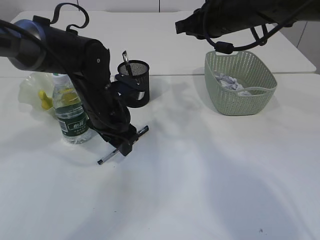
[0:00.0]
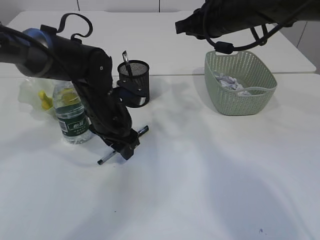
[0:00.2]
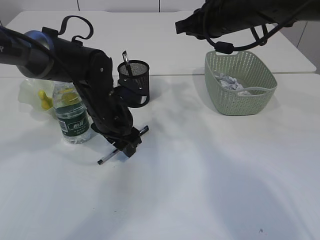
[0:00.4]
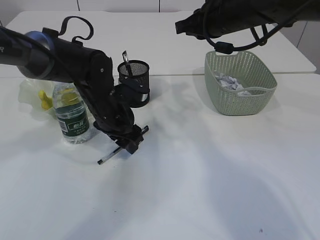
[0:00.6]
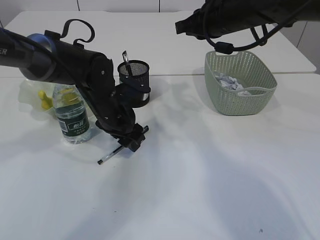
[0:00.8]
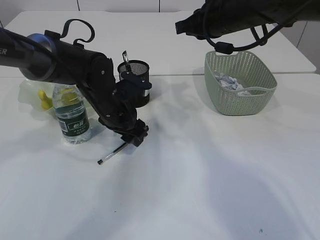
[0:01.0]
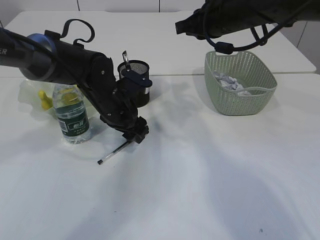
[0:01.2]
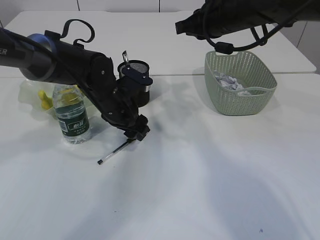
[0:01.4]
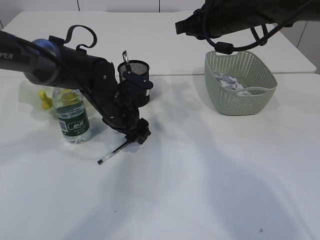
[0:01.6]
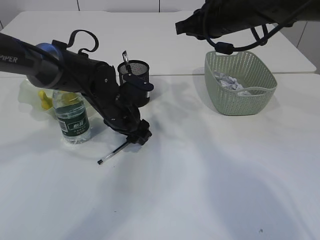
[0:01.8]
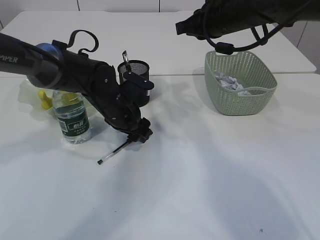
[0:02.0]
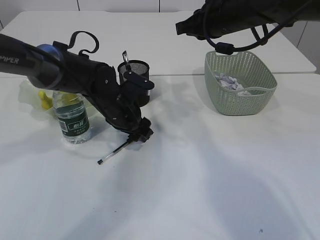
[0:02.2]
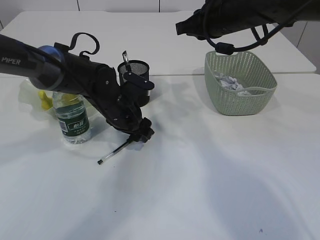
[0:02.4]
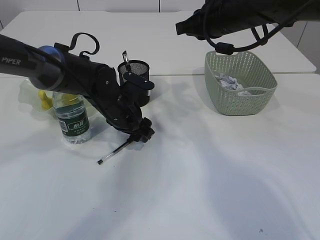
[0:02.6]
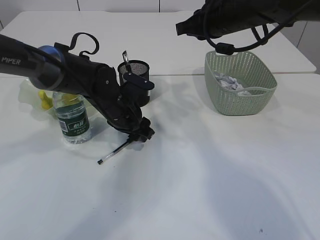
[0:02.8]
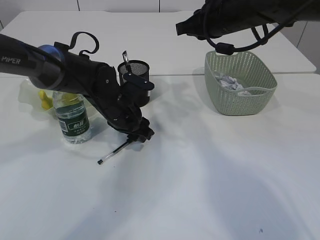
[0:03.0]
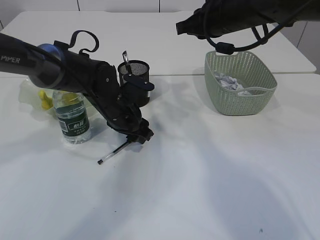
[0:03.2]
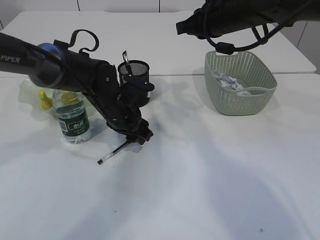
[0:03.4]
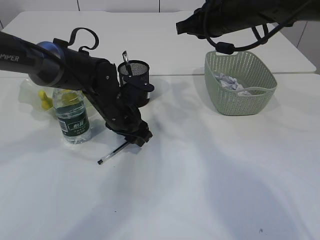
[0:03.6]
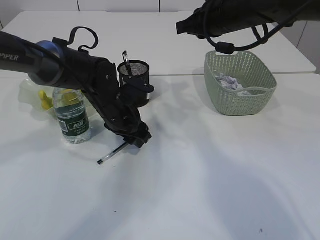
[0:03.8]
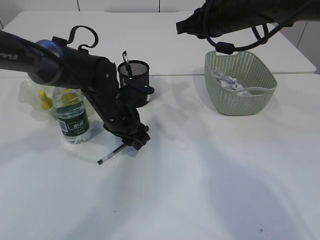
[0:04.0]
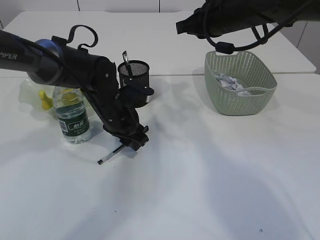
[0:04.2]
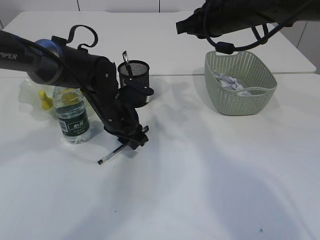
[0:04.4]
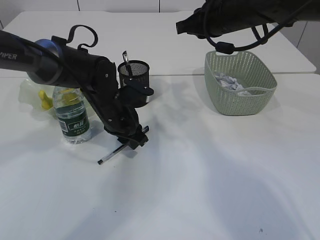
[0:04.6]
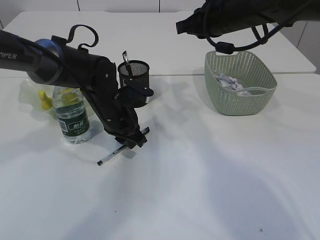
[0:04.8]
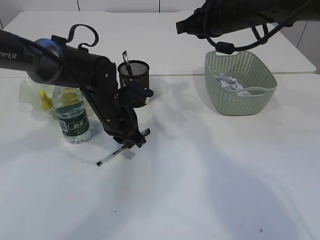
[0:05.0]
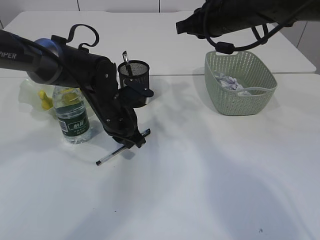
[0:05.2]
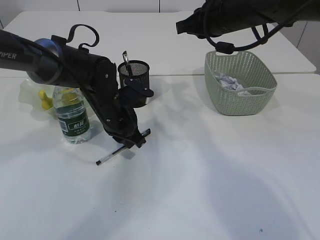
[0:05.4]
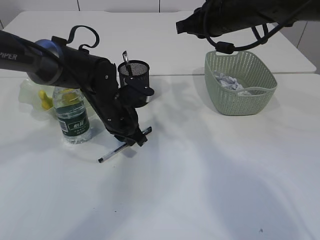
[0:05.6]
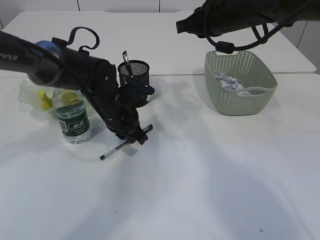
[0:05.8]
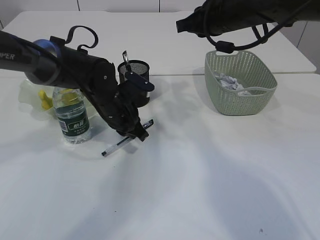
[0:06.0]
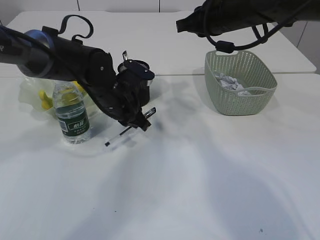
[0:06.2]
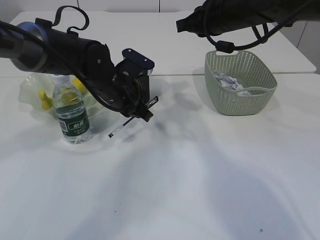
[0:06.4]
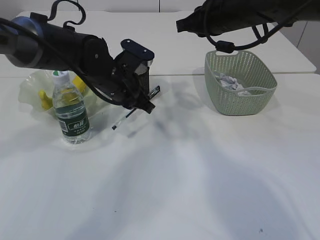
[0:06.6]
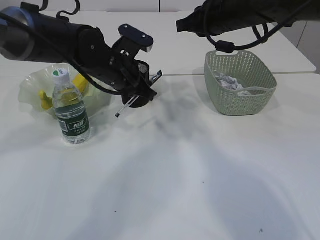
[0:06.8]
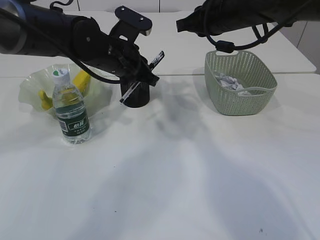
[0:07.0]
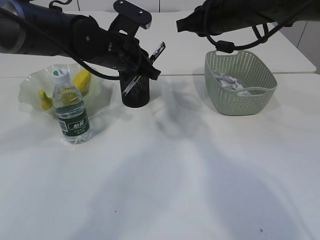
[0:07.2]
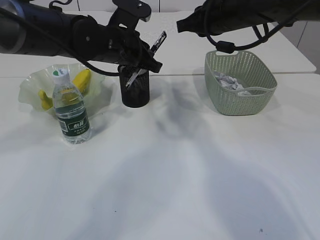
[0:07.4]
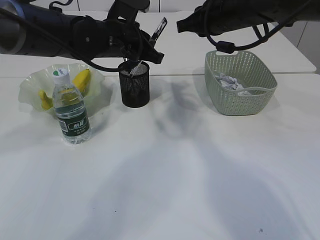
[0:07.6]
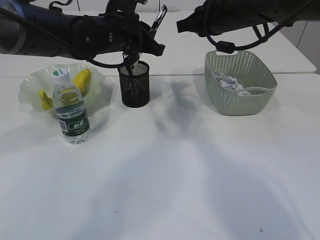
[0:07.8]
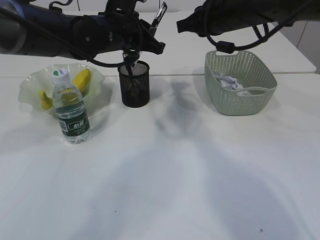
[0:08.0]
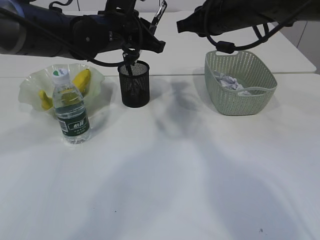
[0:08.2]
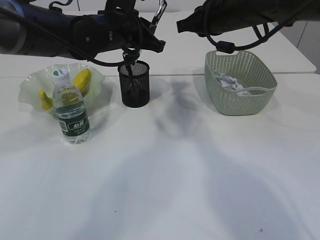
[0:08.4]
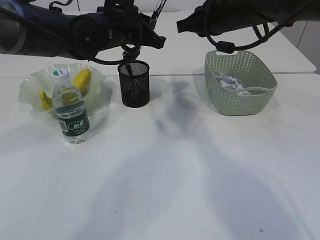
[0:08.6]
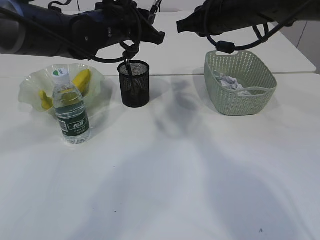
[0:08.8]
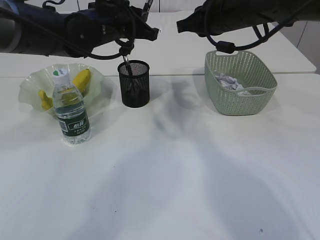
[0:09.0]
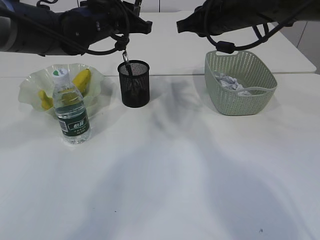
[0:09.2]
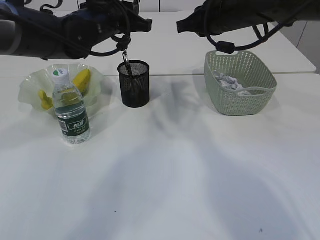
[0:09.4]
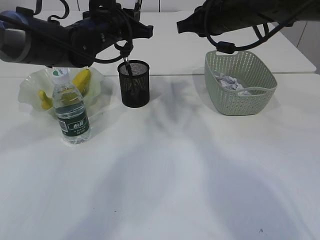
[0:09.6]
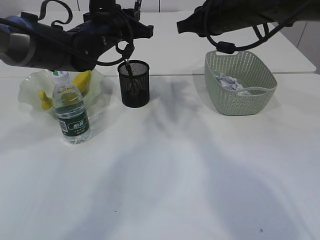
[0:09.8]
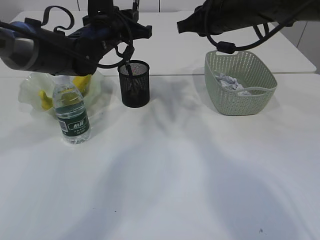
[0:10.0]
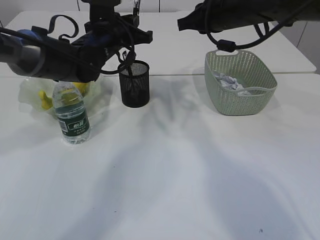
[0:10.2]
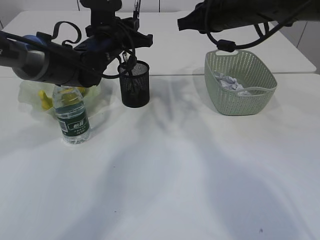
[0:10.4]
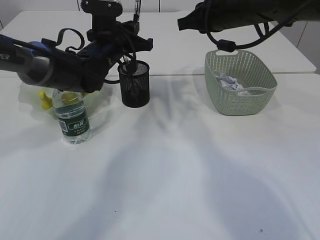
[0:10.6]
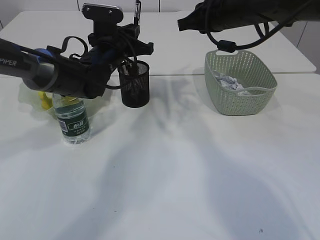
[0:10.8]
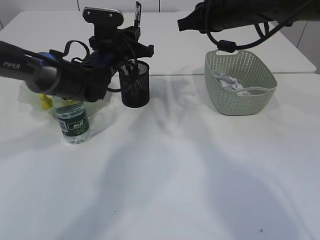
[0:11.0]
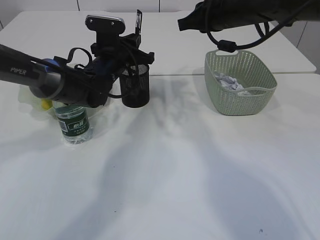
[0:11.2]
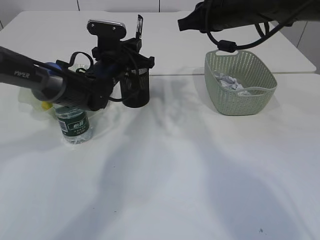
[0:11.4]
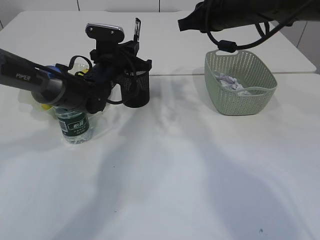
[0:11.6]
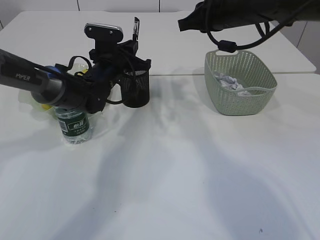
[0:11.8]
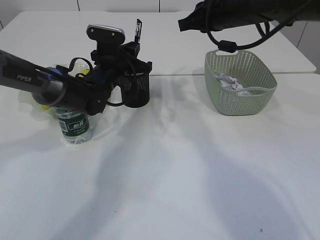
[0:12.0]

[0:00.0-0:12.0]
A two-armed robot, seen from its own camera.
Step, 0:00.0 to 0:06.0: Pick up the pen with left arm.
0:00.0 to 0:01.6: There are only small adjustments of the grippers.
0:01.6 to 0:03.0: Neither gripper changes place.
0:03.0 to 0:04.4: There are only small adjustments of the grippers.
0:04.4 to 0:06.0: The left gripper closes.
0:06.0 to 0:07.6: The left gripper shifts roughly 10 cm upward.
0:07.6 to 0:09.0: The grippers stay close to where they were, moving slightly.
0:09.0 to 0:10.4: The left gripper changes place by roughly 5 cm.
0:10.4 to 0:12.0: The left gripper moves downward, approximately 5 cm.

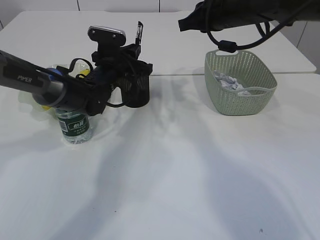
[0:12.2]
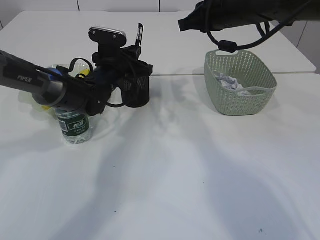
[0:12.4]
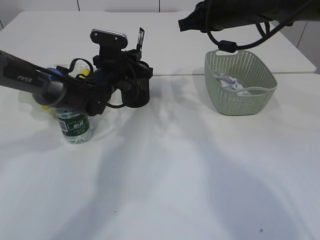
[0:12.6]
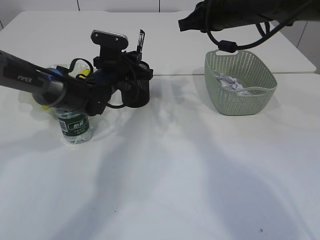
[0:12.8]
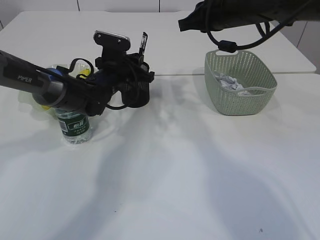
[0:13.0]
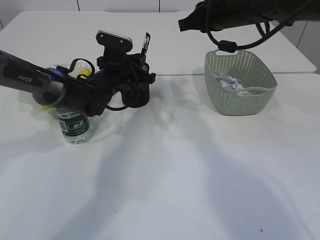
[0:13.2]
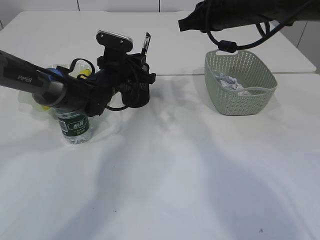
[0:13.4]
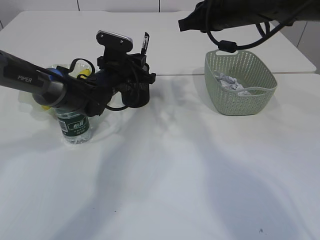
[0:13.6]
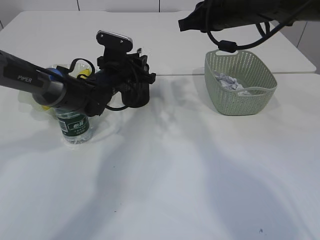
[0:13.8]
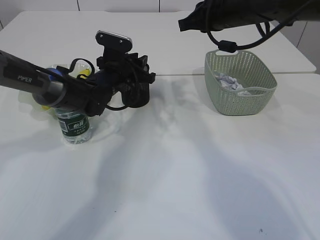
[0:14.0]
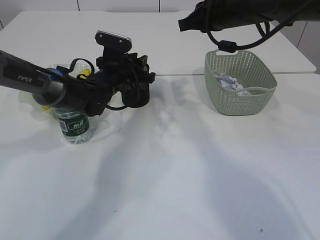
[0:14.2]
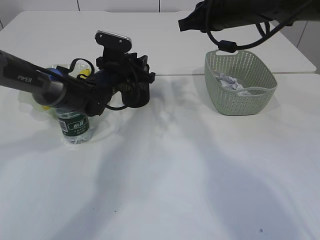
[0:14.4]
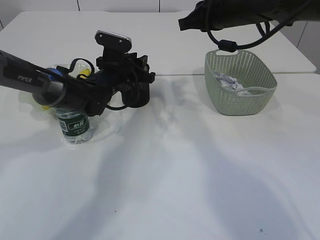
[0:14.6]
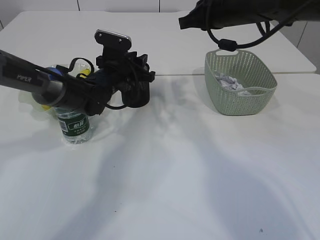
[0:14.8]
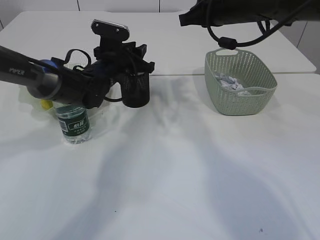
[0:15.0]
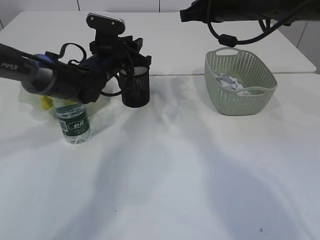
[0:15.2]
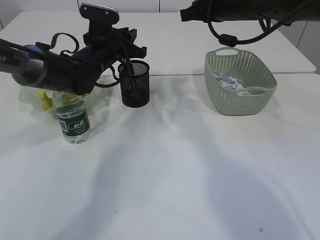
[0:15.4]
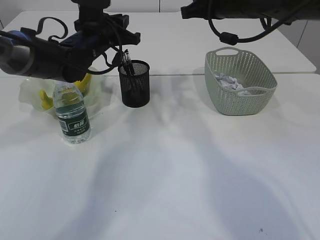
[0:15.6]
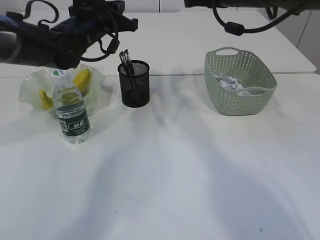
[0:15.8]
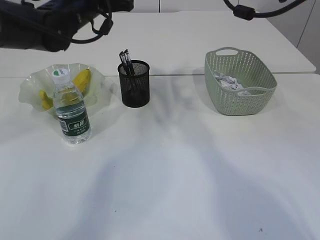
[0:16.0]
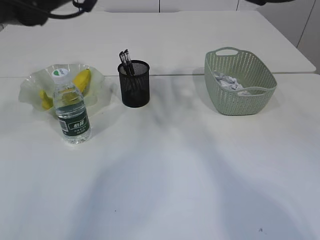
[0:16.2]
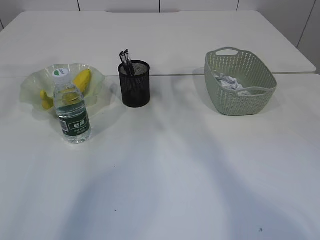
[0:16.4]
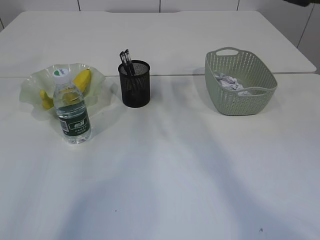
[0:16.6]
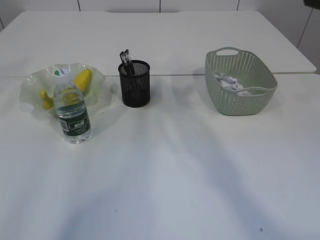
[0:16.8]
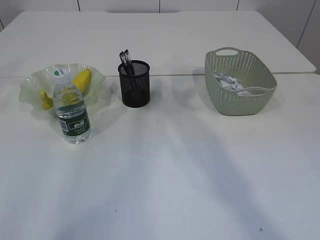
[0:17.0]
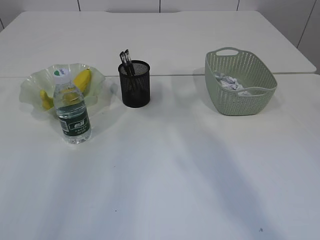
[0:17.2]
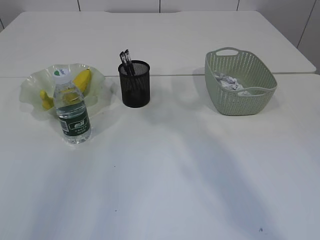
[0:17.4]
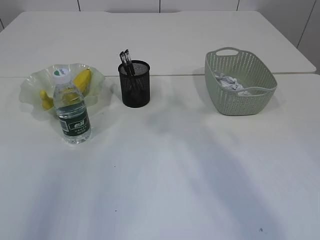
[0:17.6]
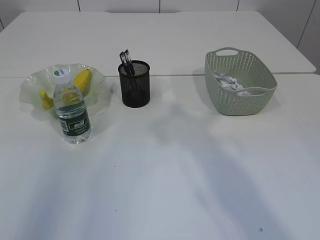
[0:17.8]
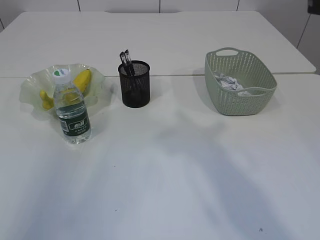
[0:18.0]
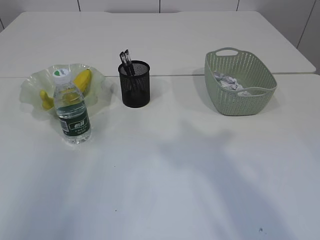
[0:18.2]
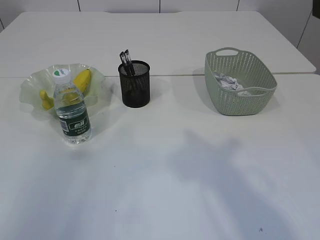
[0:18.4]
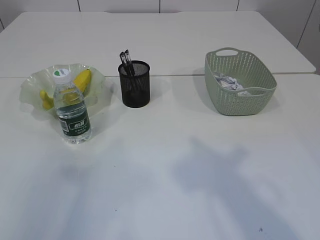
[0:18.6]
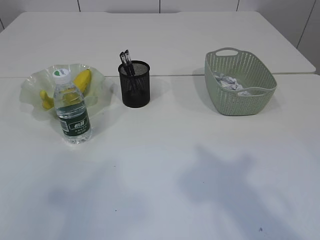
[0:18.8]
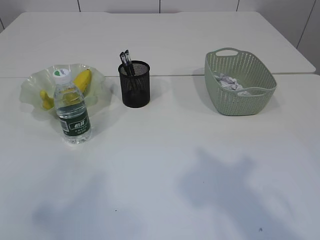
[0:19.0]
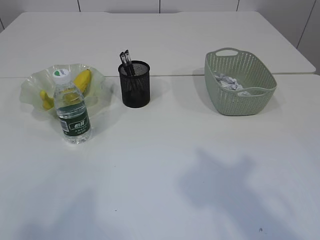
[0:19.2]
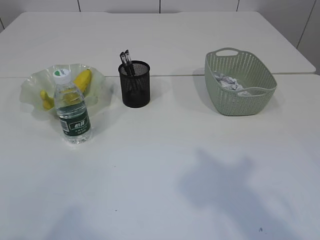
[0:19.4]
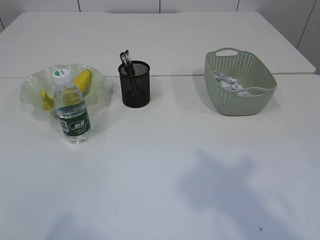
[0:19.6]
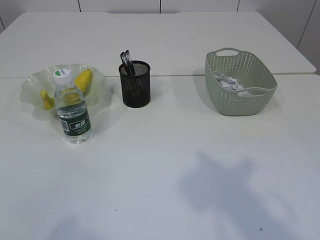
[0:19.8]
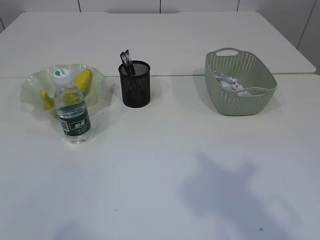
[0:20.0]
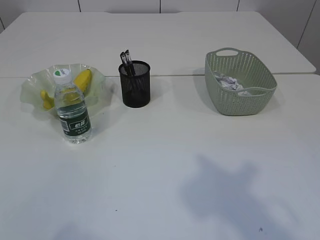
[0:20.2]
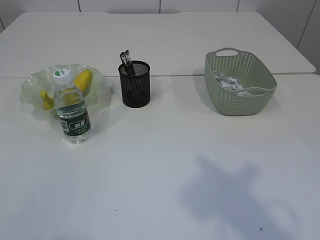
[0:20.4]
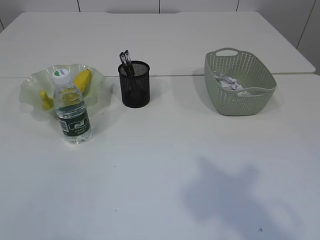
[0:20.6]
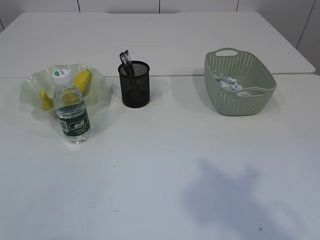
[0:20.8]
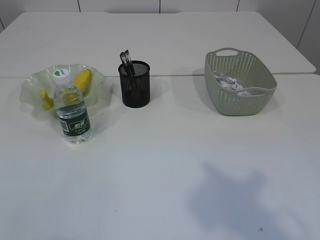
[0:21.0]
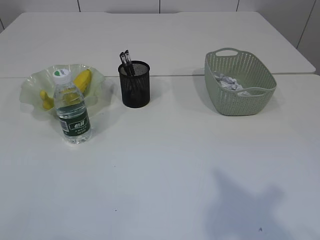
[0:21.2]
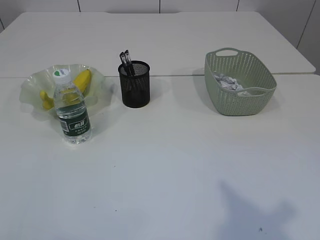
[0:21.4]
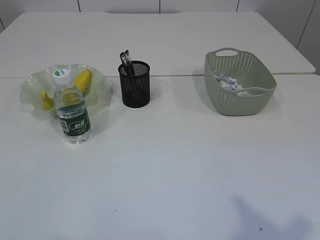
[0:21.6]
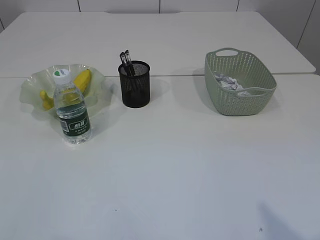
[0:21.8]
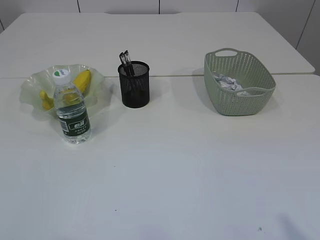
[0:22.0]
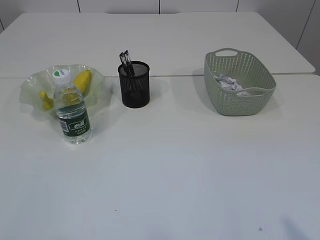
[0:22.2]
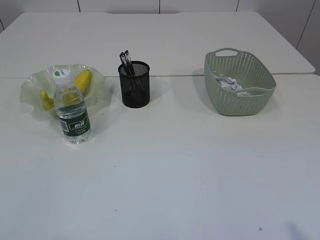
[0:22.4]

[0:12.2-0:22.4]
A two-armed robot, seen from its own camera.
0:12.2 to 0:15.2: The grippers stay close to where they were, moving slightly.
0:15.2 to 0:16.6: The left gripper is displaced upward and to the left by roughly 25 cm, and closes up; the right gripper goes about 15 cm upward and backward.
0:16.6 to 0:18.0: The two grippers go approximately 20 cm backward.
0:21.0 to 0:22.4: The right gripper goes about 15 cm backward, to the right and downward.
